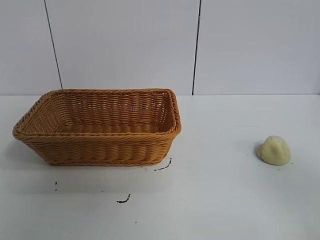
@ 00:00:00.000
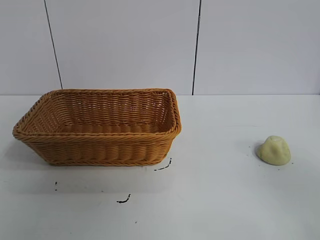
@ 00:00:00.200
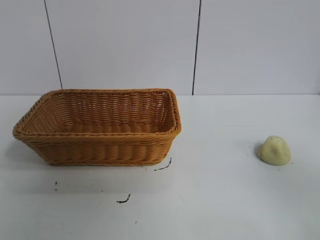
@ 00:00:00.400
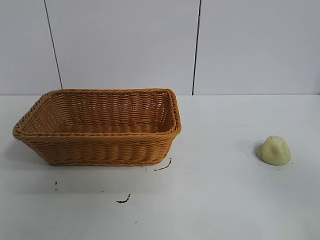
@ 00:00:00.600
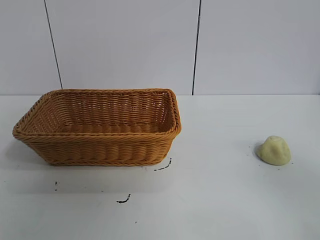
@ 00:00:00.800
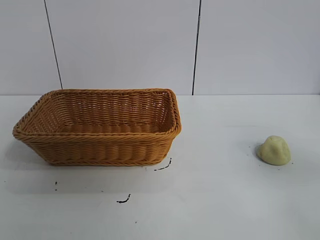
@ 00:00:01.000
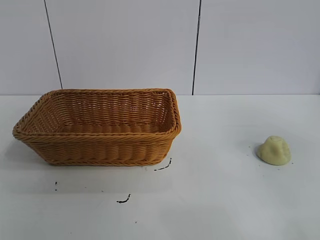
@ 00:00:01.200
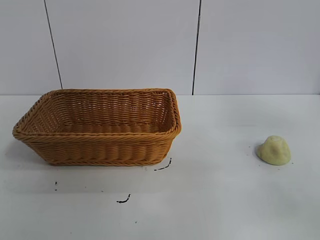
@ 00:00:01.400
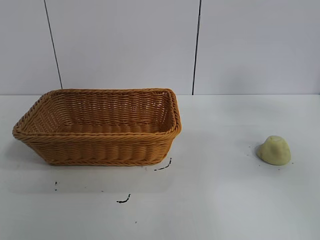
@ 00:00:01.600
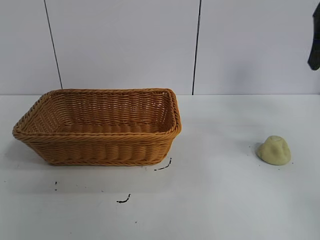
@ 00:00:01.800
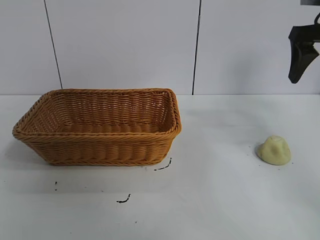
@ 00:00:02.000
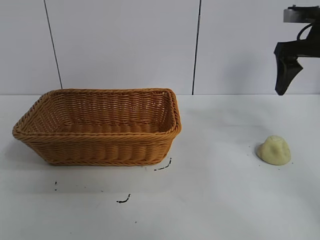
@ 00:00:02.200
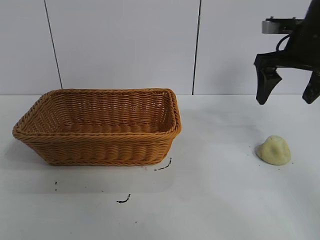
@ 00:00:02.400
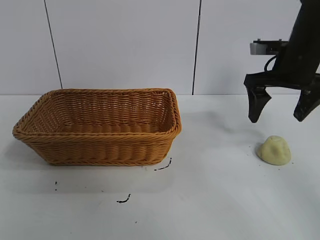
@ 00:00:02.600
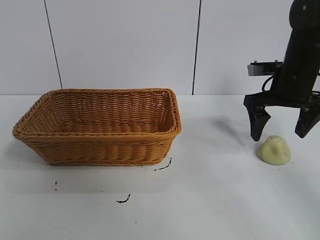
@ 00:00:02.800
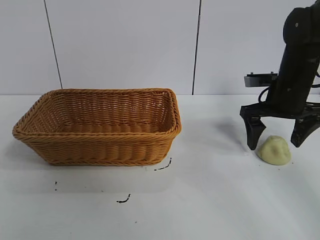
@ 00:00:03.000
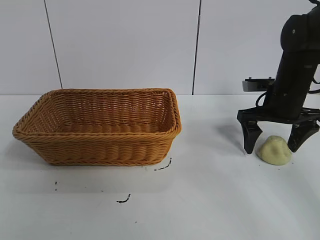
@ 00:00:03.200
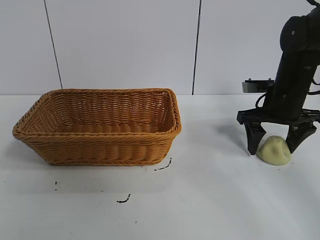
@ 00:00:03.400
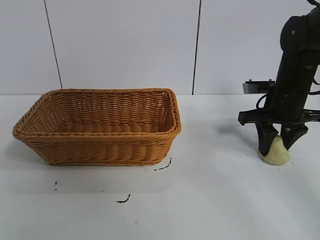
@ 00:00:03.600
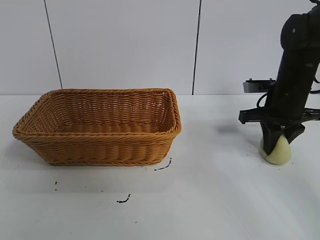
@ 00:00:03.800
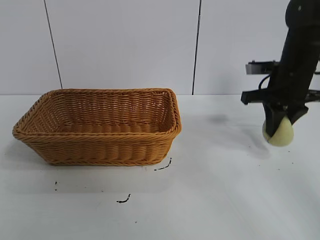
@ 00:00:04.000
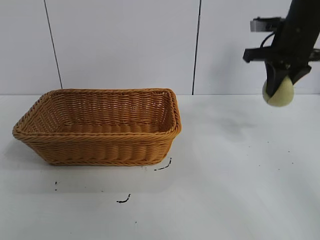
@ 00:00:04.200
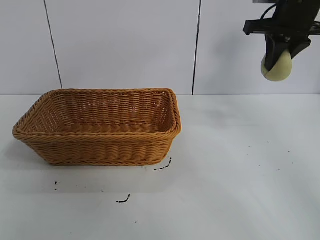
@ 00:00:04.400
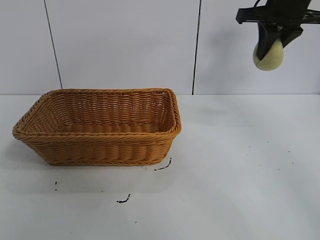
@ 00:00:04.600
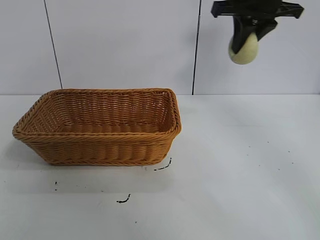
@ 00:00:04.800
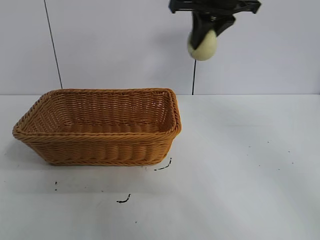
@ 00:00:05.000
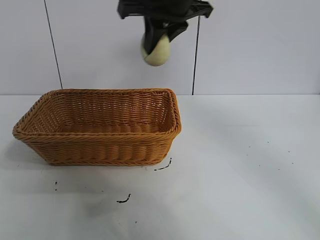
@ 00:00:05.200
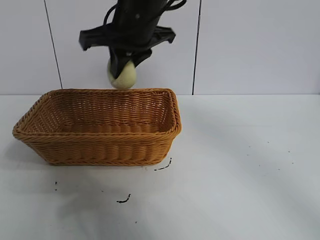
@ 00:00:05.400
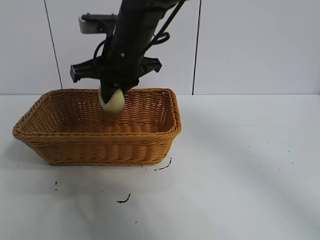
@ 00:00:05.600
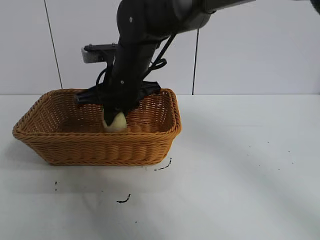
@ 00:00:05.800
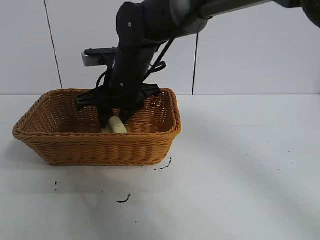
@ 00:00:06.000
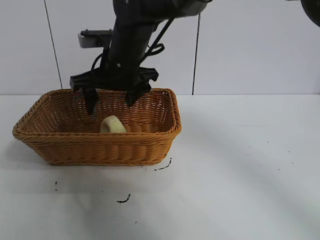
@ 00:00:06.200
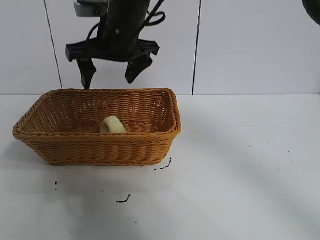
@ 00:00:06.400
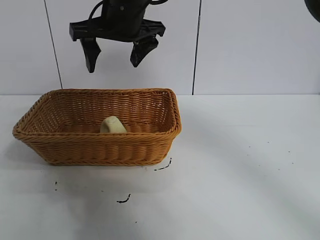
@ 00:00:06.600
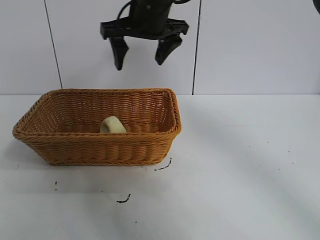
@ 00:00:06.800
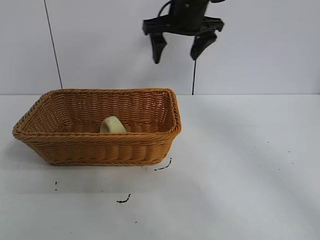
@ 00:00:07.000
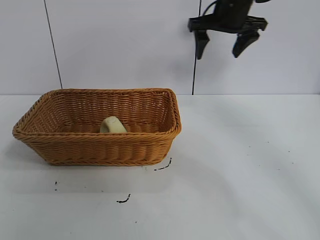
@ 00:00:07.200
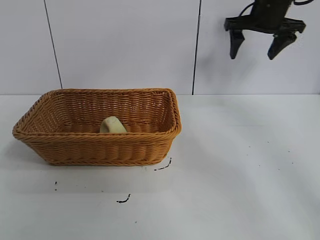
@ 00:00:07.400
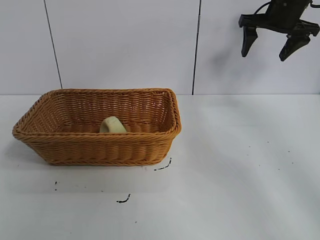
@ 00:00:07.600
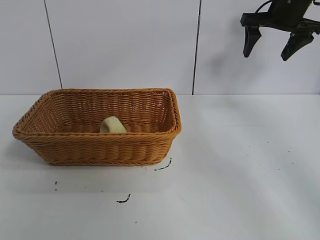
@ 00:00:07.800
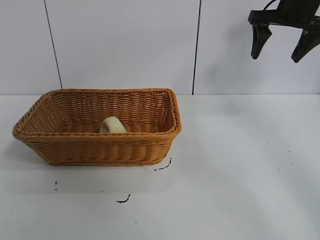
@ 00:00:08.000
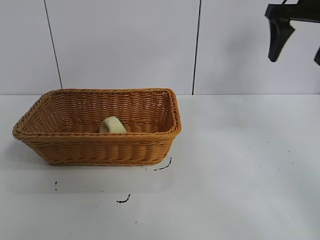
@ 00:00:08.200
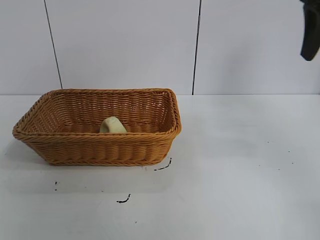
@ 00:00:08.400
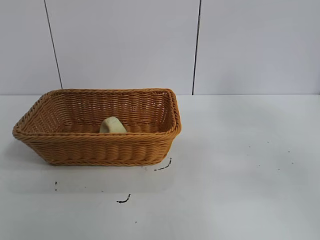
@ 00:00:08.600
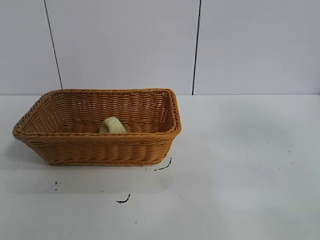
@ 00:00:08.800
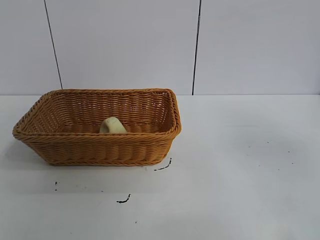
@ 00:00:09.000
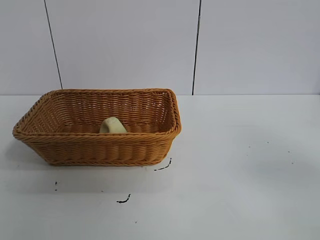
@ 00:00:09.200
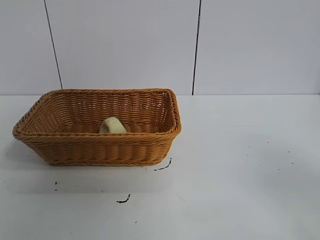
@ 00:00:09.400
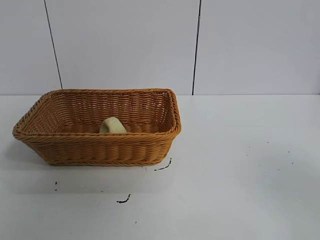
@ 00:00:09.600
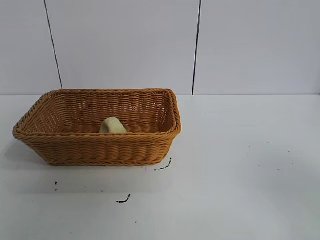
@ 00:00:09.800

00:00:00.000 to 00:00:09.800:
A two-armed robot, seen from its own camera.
Task of the whole recording: pick up the egg yolk pastry and put it into the basket.
Step, 00:00:00.800 to 00:00:03.800: Grasp egg yolk pastry with right gripper.
Step, 00:00:04.000 to 00:00:06.000: Place the egg yolk pastry in the basket with right gripper.

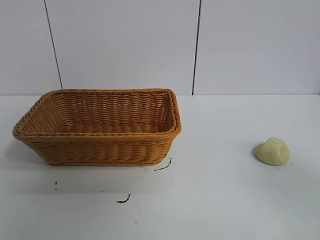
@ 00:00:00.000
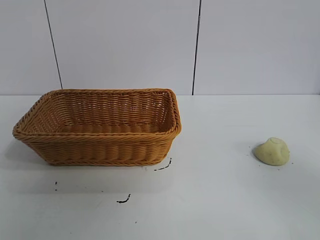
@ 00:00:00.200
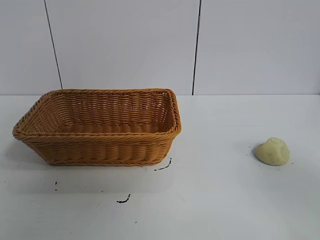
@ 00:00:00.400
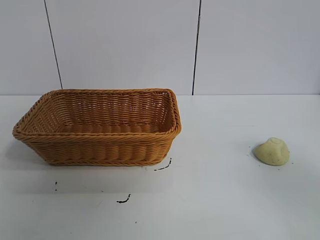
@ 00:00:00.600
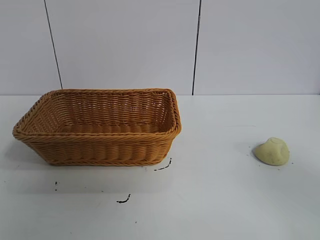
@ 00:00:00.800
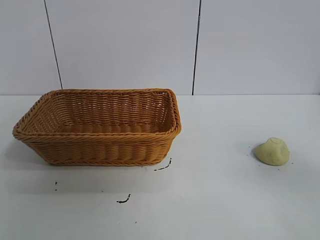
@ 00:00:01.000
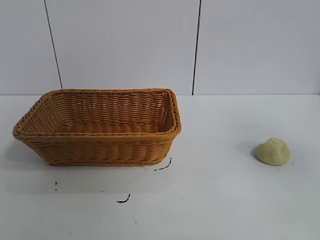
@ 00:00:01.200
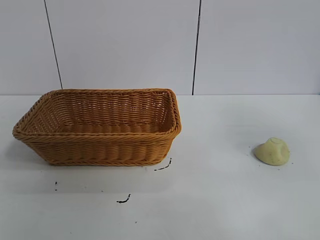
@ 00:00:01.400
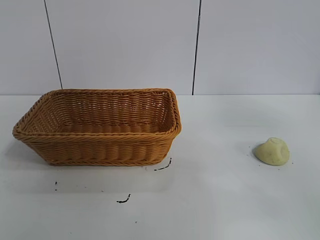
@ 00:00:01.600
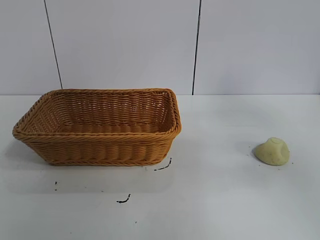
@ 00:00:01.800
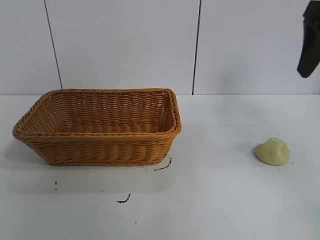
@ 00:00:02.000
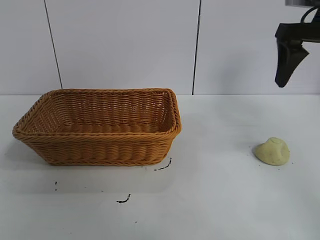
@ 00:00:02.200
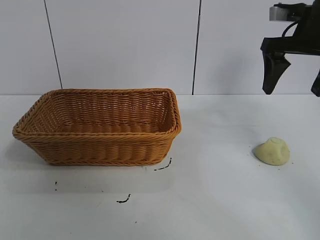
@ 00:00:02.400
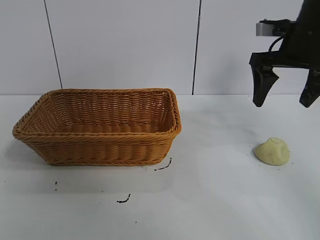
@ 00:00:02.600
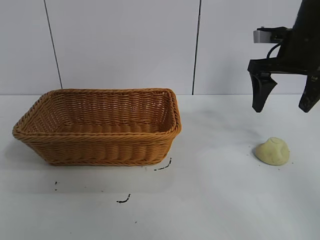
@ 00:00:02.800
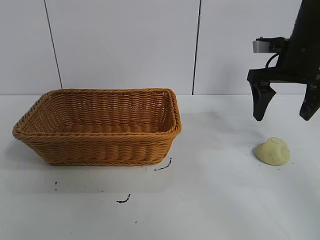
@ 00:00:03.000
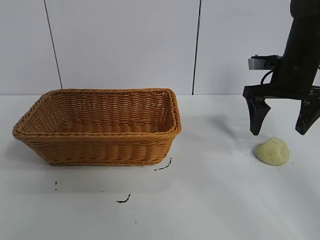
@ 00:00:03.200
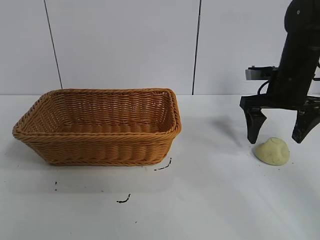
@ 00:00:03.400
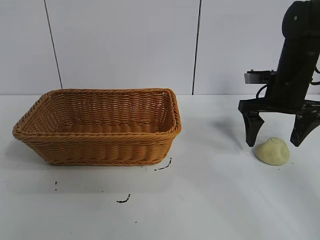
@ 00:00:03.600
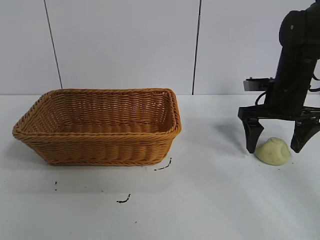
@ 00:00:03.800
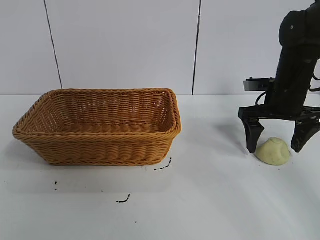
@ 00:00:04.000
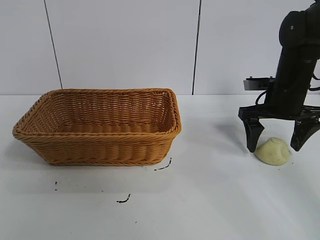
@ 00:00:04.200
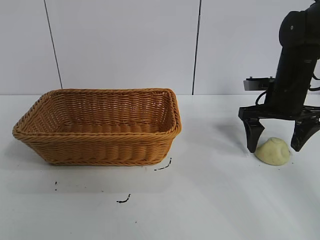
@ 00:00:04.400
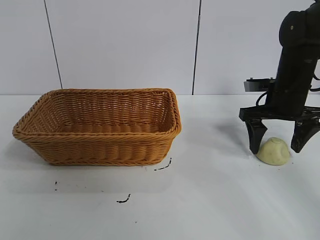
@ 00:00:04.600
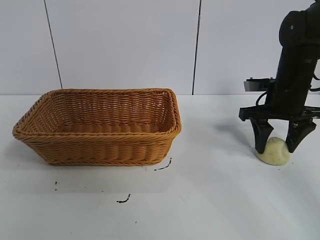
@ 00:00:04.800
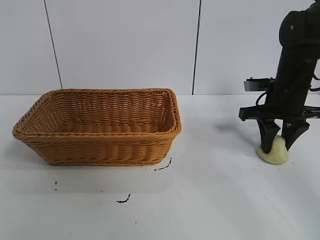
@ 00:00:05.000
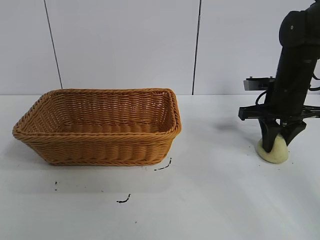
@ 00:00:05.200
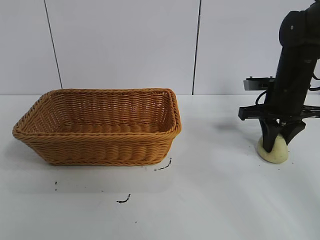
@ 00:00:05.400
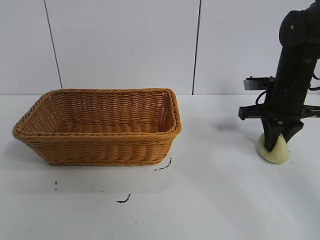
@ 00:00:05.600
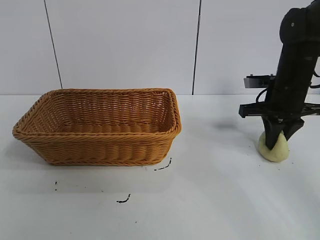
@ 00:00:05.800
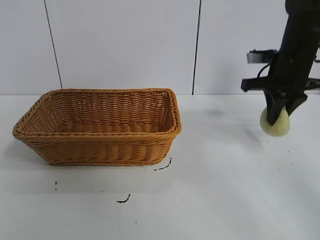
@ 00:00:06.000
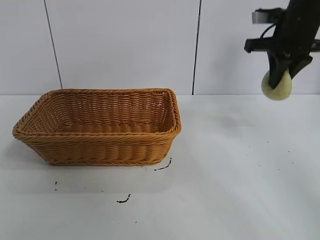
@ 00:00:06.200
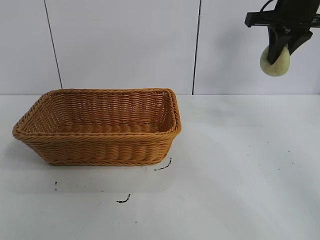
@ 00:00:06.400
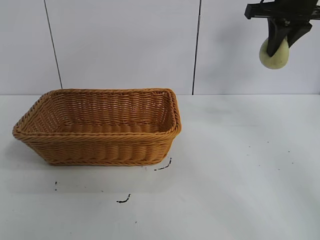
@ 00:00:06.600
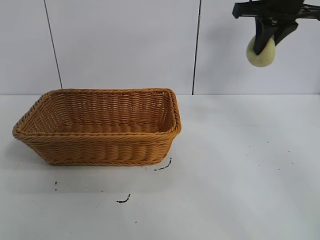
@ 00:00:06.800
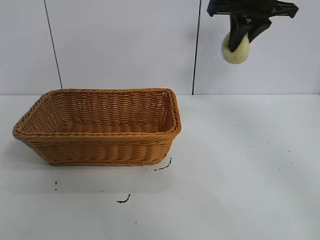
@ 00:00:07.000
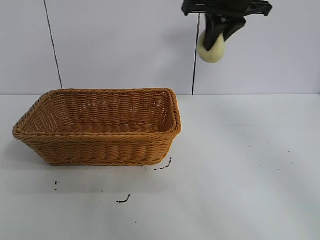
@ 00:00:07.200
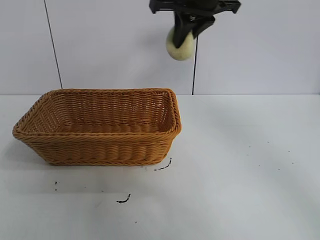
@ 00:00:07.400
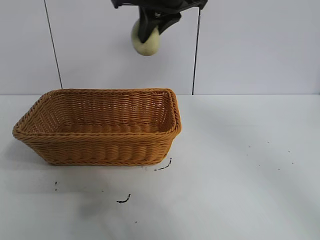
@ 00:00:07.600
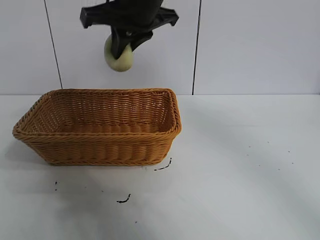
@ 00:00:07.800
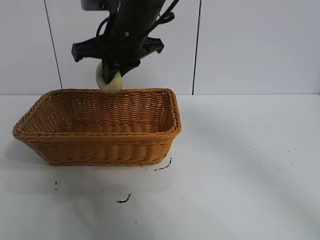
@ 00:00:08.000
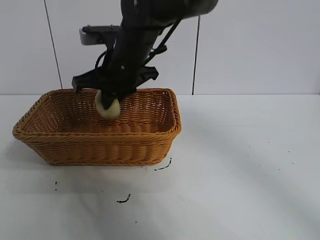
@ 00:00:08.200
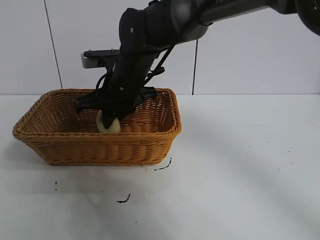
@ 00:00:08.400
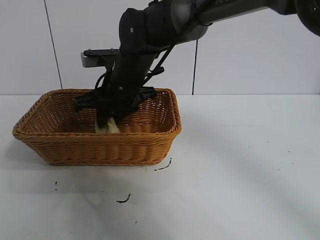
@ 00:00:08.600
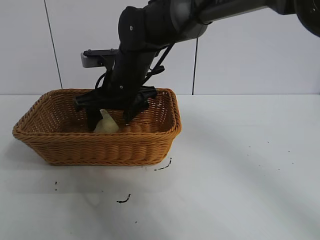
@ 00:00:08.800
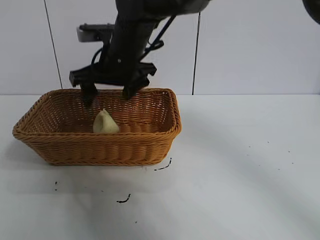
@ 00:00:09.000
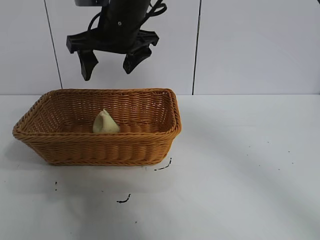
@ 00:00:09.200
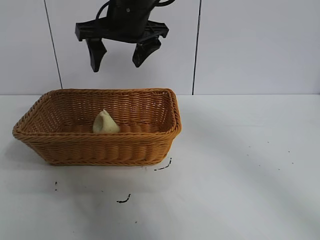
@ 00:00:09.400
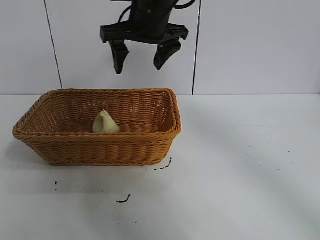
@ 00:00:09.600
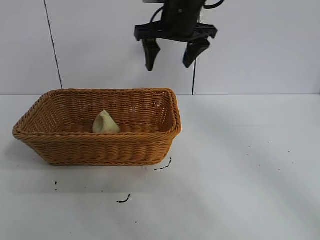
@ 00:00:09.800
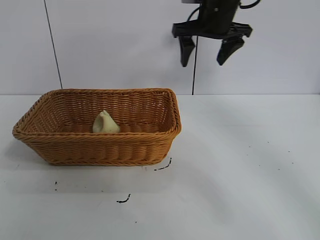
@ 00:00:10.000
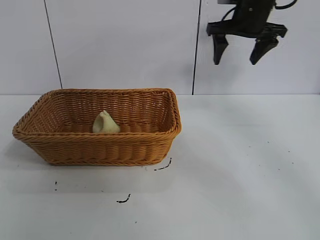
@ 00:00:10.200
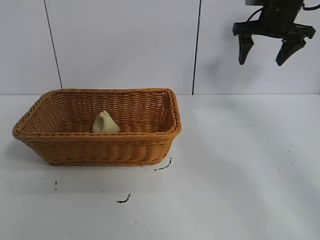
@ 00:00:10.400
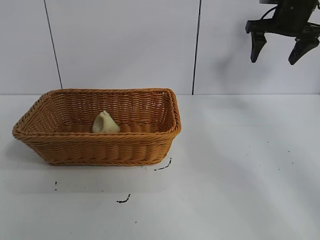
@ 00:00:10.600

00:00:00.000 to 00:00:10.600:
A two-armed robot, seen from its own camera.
Task of the whole recording: pick up the egg yolk pastry and put it into the basket.
Step, 00:00:01.000 to 00:00:05.600: Grasp egg yolk pastry with right gripper.
Step, 00:00:06.000 to 00:00:08.800: Place the egg yolk pastry in the basket with right gripper.
